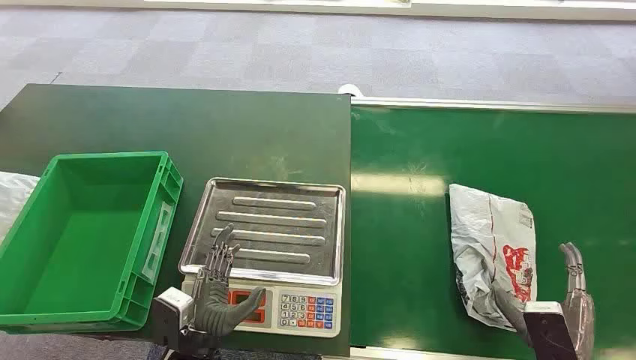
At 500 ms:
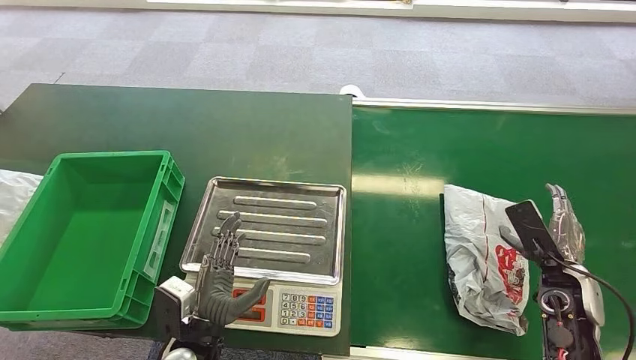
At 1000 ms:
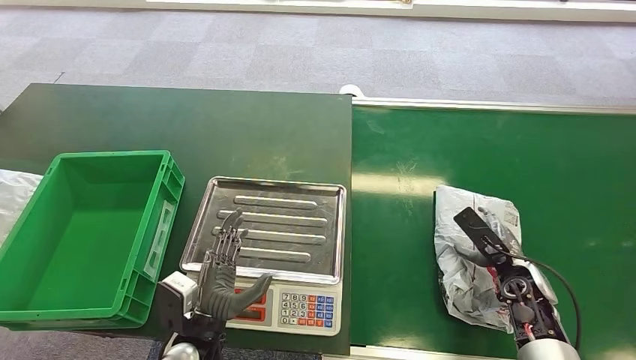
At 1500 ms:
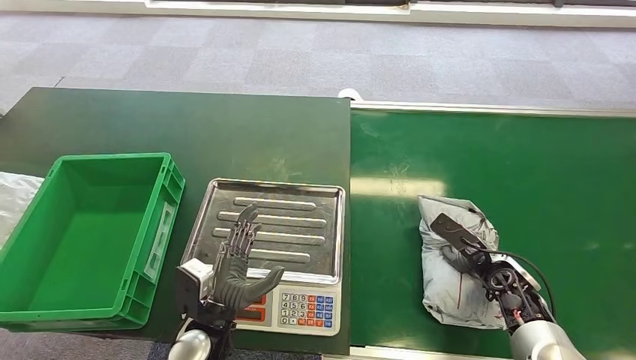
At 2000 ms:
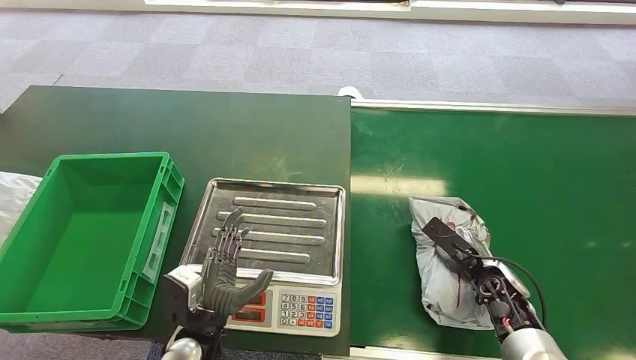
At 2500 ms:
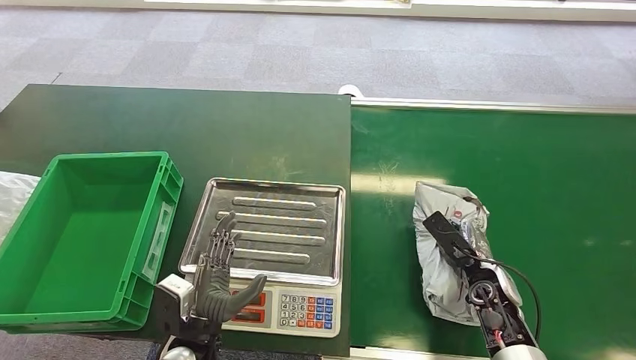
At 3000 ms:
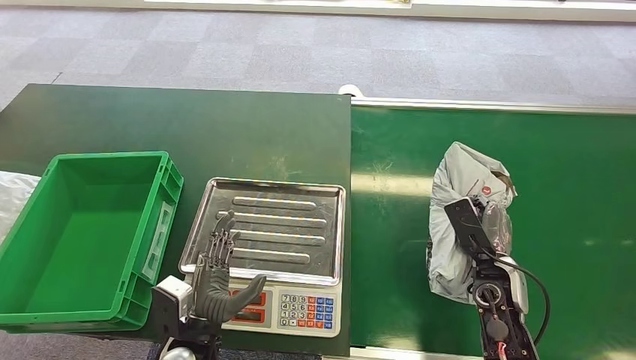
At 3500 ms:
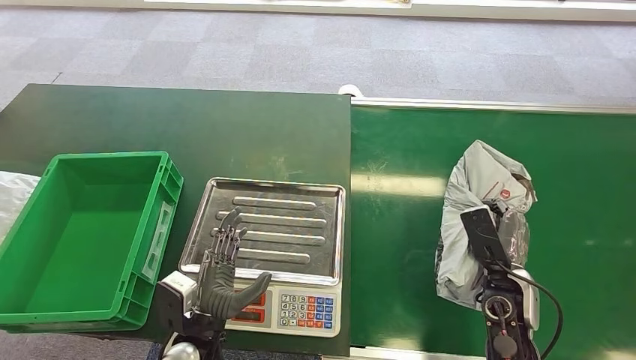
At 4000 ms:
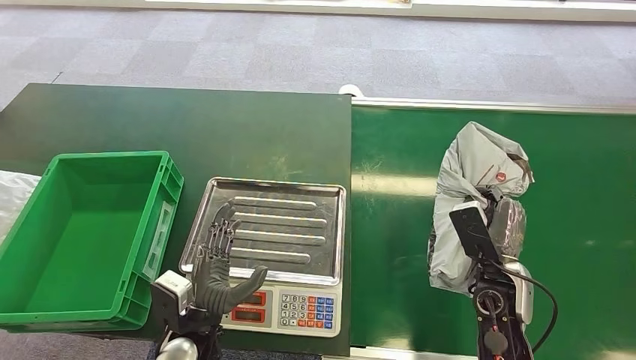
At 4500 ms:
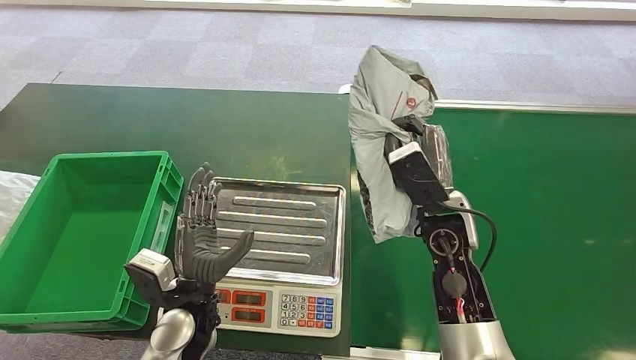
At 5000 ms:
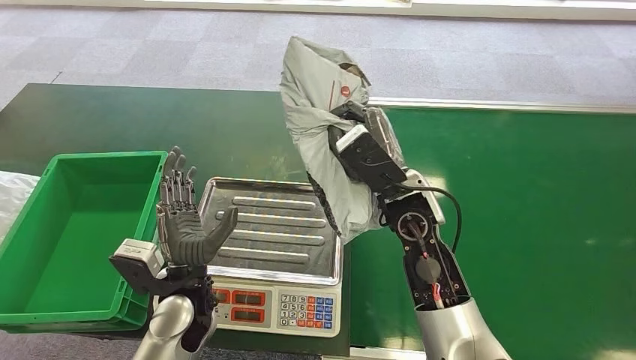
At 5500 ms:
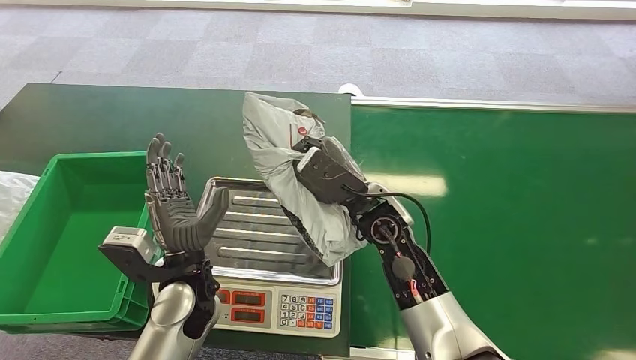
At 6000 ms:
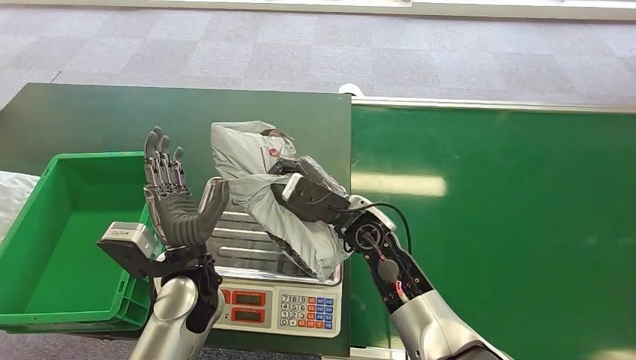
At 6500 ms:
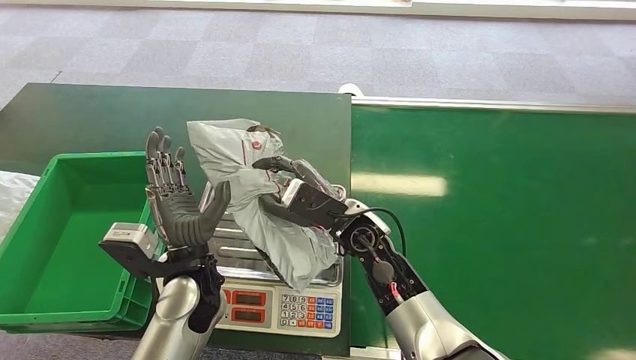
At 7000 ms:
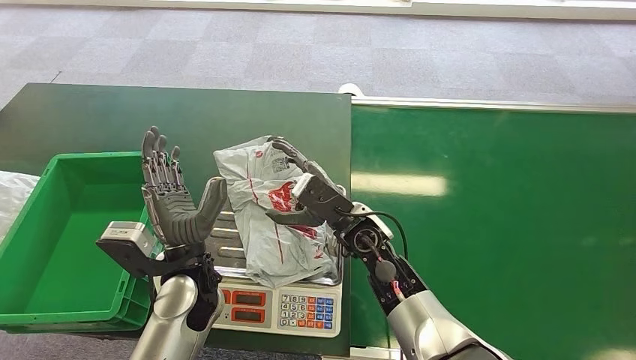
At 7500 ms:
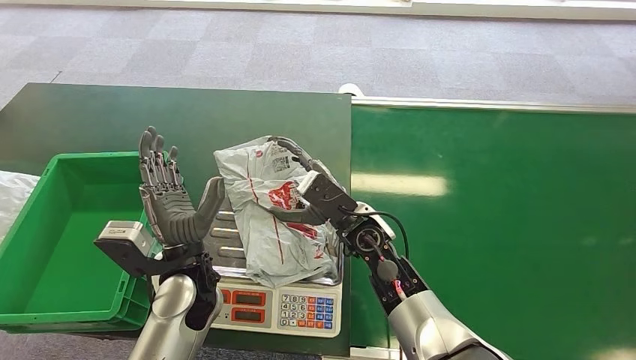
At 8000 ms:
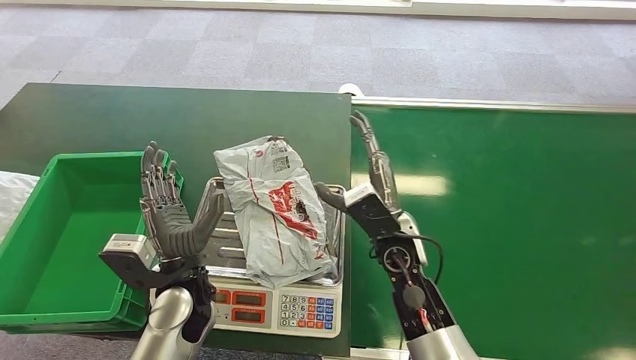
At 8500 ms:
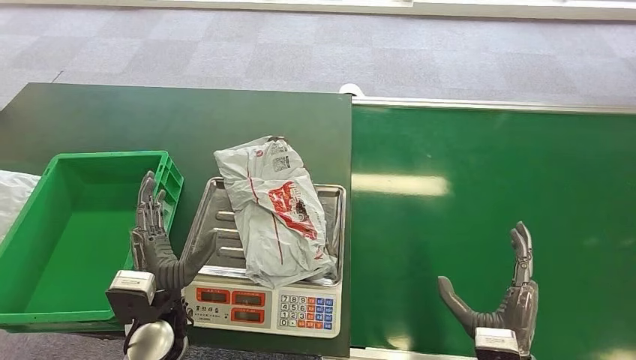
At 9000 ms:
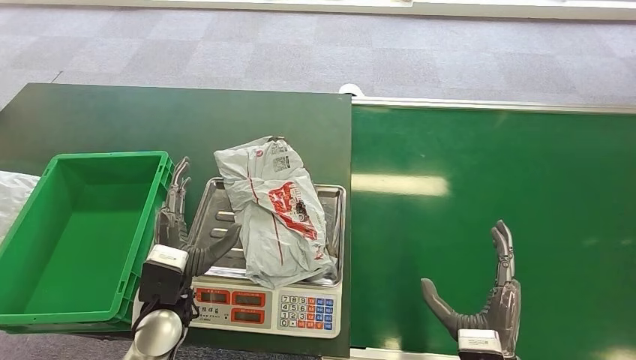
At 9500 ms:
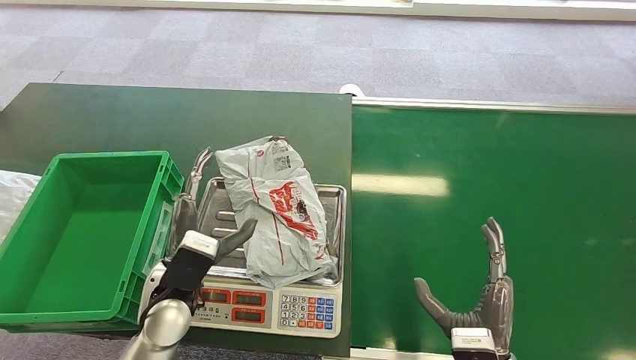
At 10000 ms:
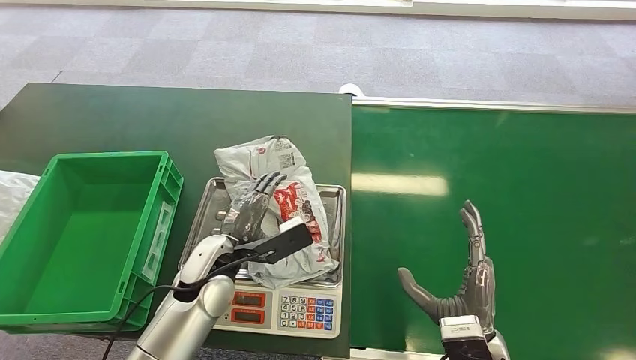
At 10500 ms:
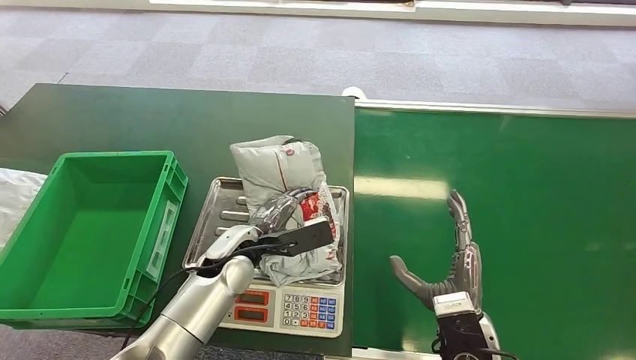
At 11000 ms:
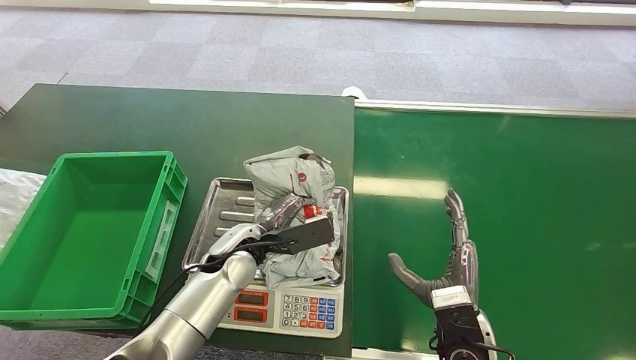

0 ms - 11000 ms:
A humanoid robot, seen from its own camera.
Step, 0 ms - 3500 ms: Pick up the package from the conveyor belt.
Step, 4000 ms - 7000 ms: Place the package onto the inbound machine.
2000 ms - 3500 ms: The right hand shifts some 10 cm upward and to the left.
5500 ms - 7500 ms: The right hand moves downward, roughly 5 cm.
7500 ms - 9000 ms: The right hand heads backward and to the right, covering approximately 25 cm. Meanwhile the left hand changes place by roughly 5 cm.

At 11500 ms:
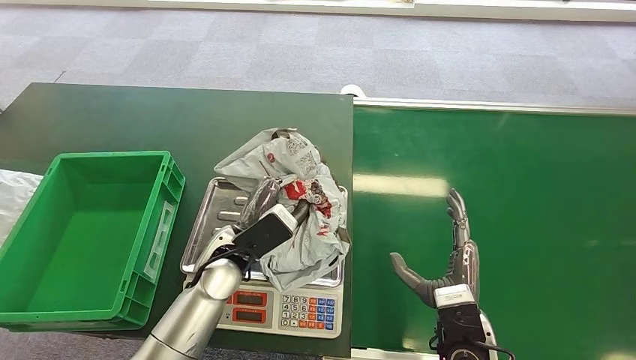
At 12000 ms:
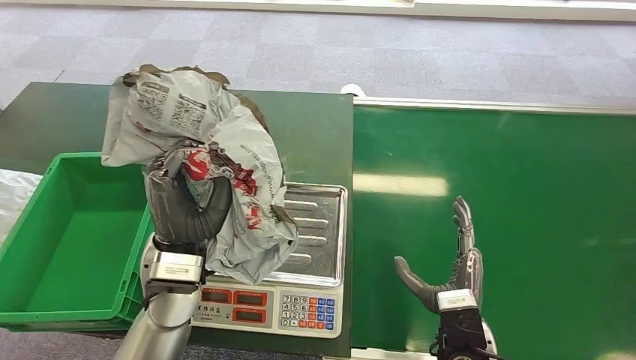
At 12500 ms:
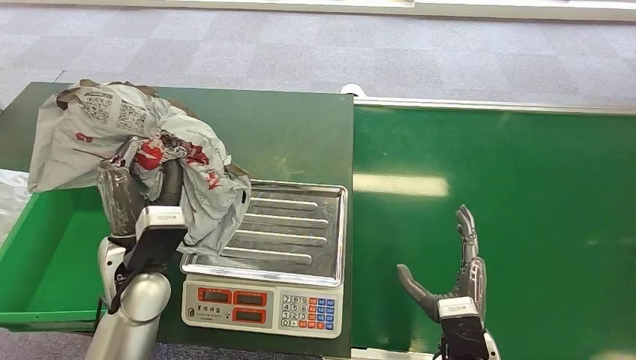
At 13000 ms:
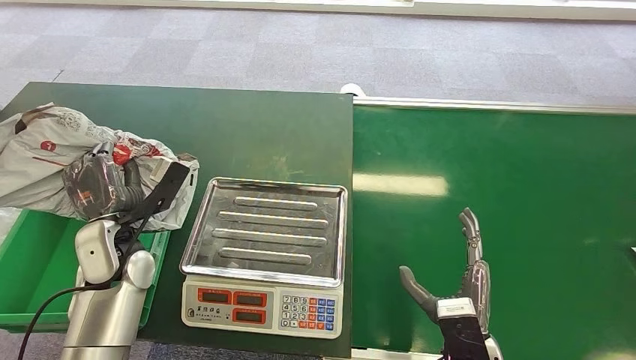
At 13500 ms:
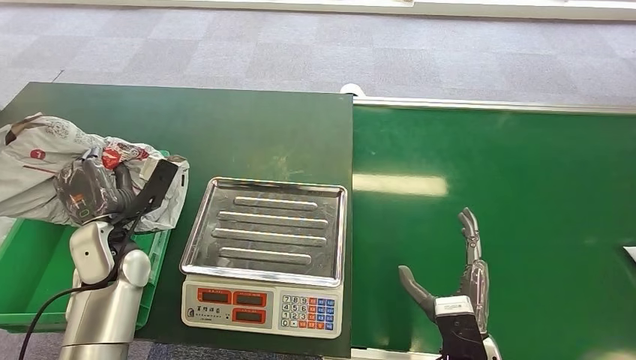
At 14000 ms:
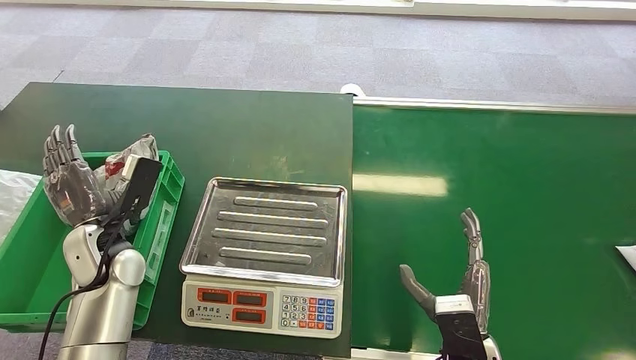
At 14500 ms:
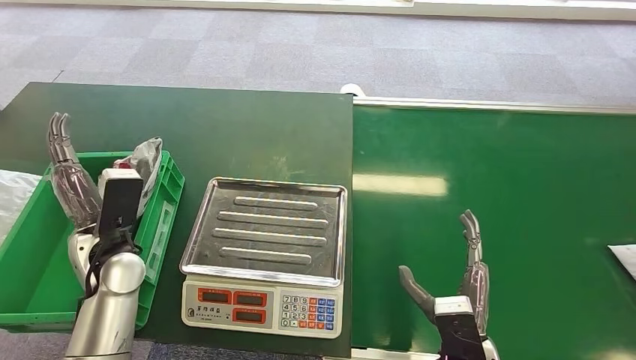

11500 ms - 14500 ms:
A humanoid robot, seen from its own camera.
Step, 12000 ms - 14500 ms: Place the package into the parcel locker.
